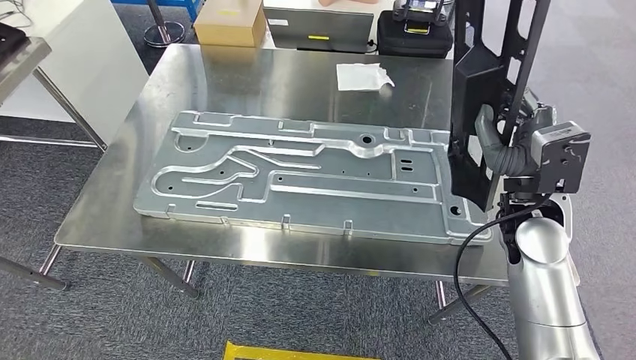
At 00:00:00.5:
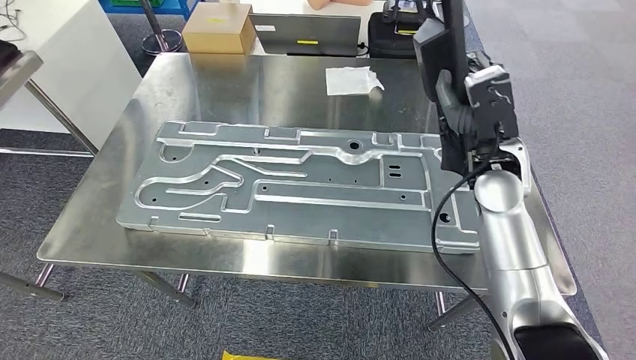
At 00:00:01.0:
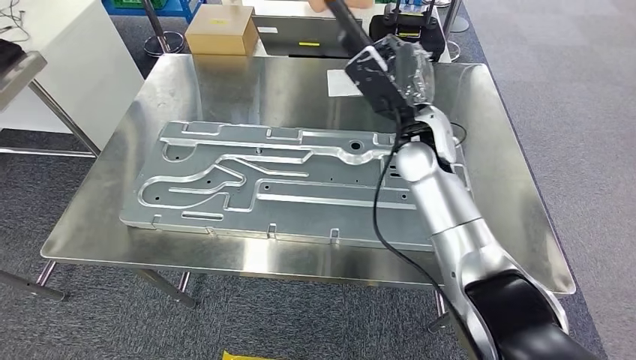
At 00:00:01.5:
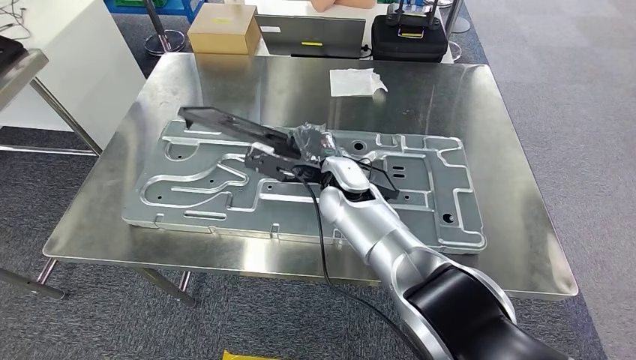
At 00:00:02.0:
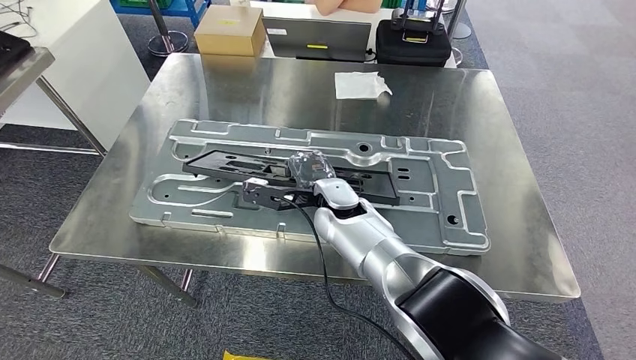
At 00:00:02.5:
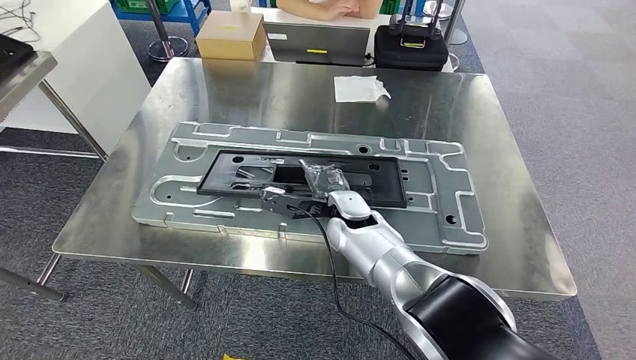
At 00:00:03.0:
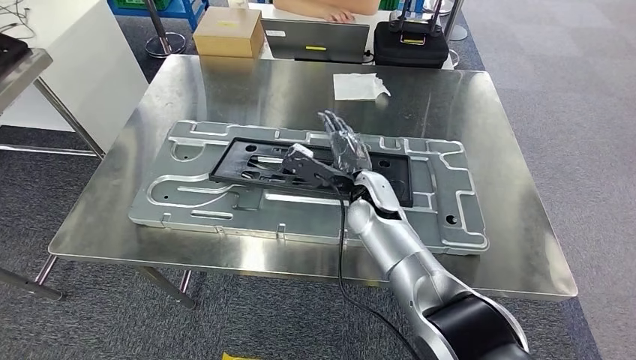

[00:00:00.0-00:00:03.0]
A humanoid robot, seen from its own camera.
Step, 00:00:00.5 to 00:00:03.0: Insert the large material into the corresponding slot on the workbench.
